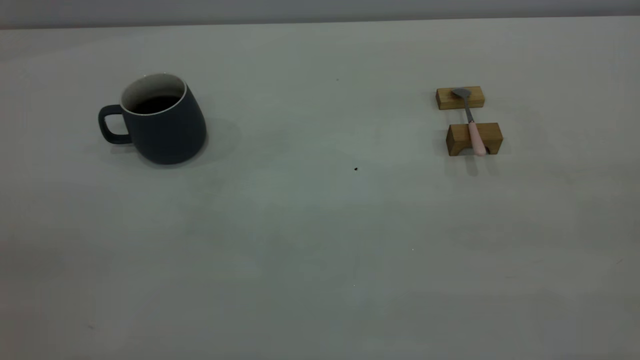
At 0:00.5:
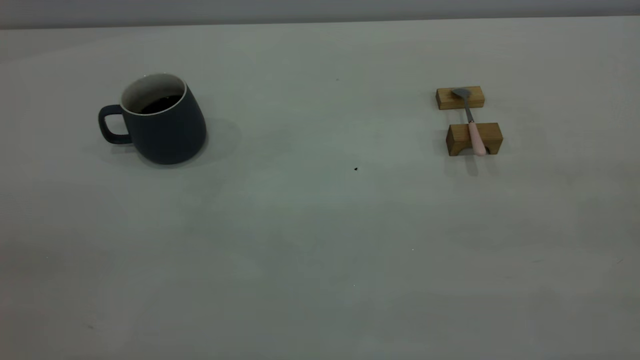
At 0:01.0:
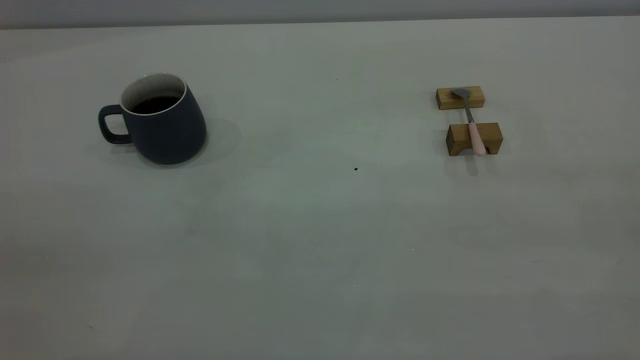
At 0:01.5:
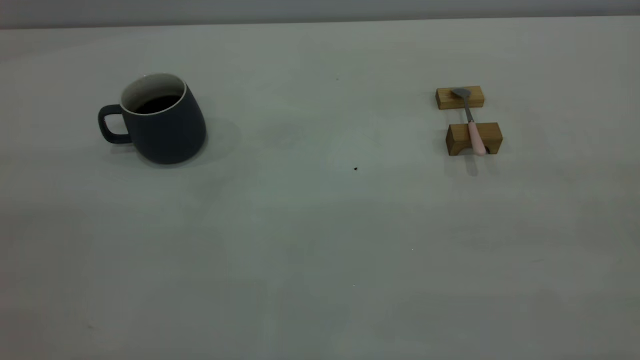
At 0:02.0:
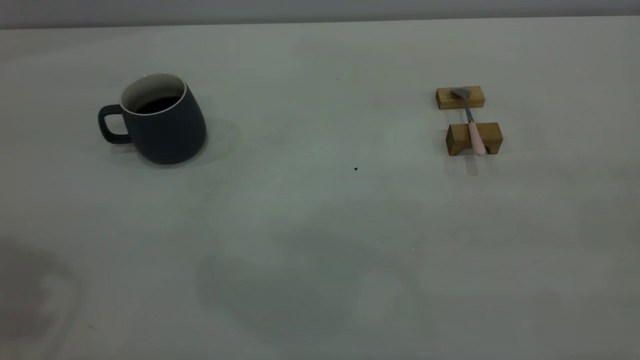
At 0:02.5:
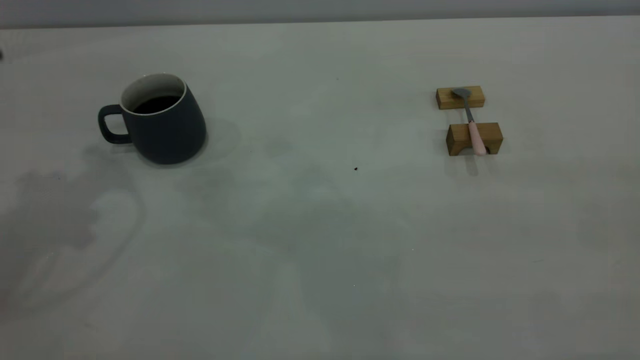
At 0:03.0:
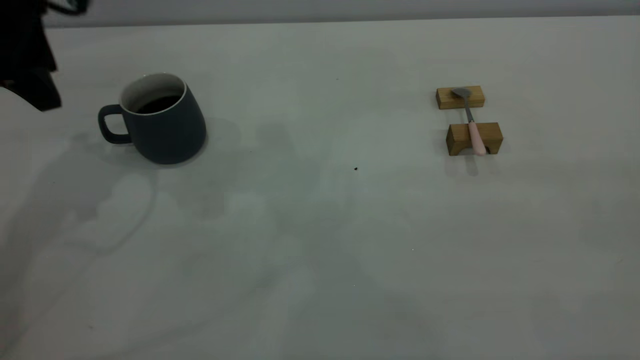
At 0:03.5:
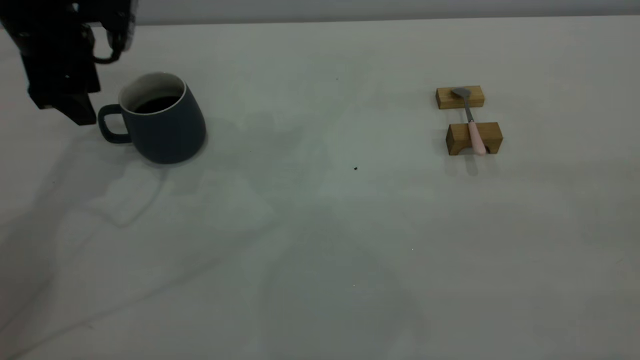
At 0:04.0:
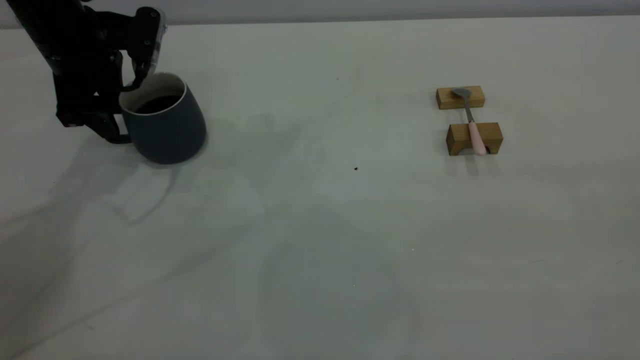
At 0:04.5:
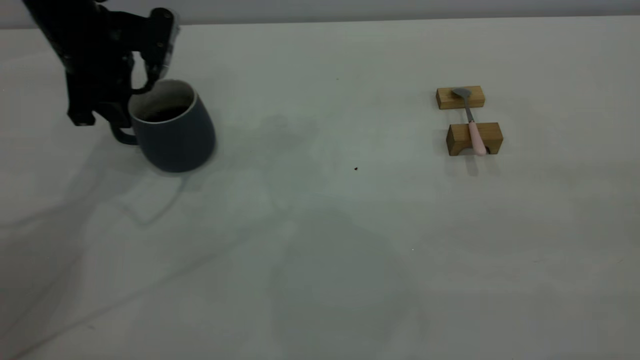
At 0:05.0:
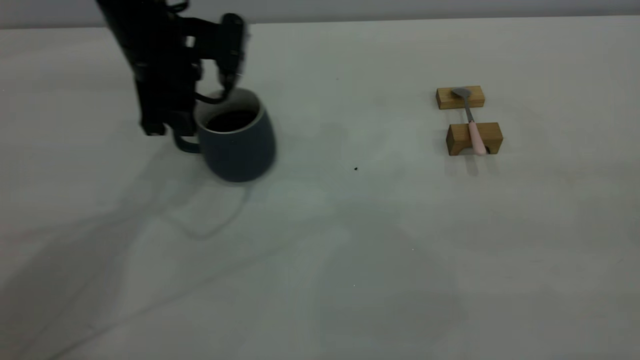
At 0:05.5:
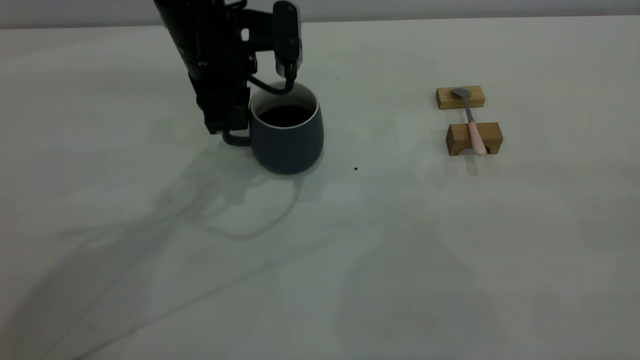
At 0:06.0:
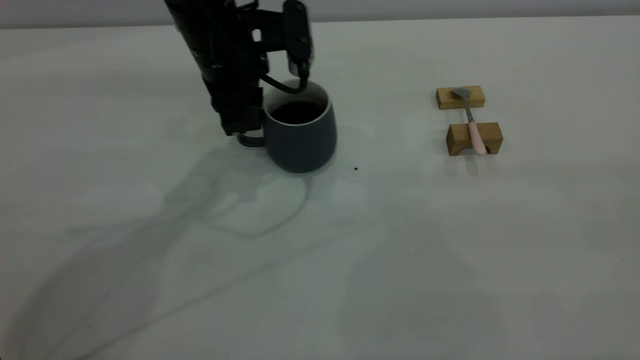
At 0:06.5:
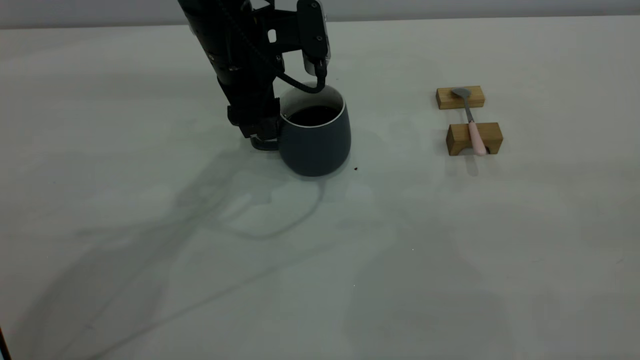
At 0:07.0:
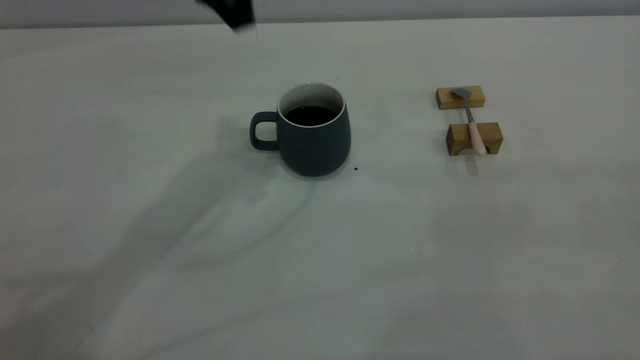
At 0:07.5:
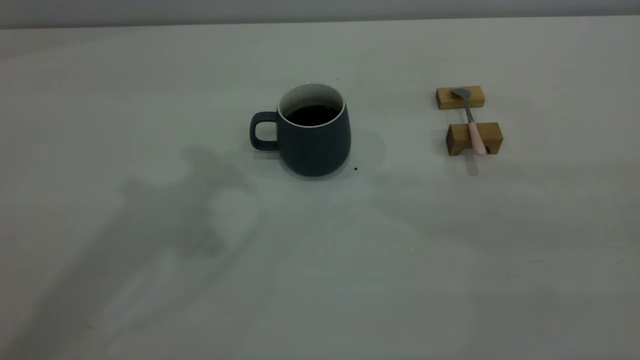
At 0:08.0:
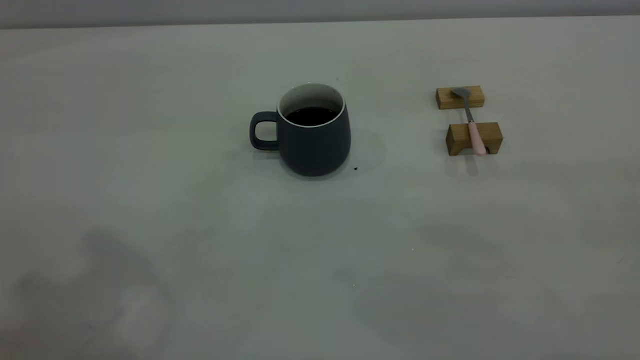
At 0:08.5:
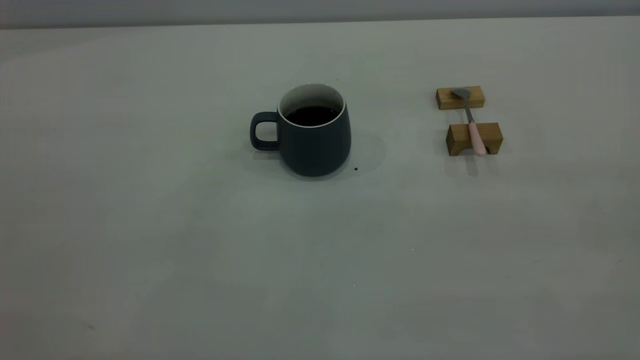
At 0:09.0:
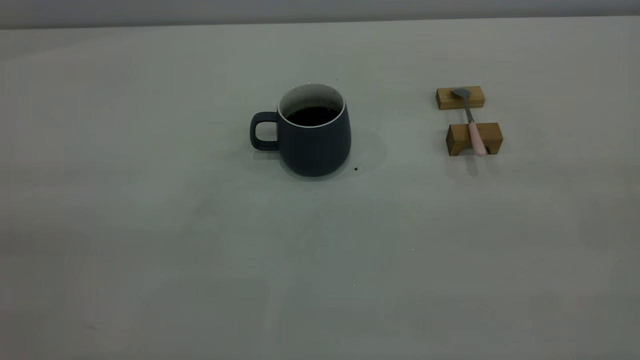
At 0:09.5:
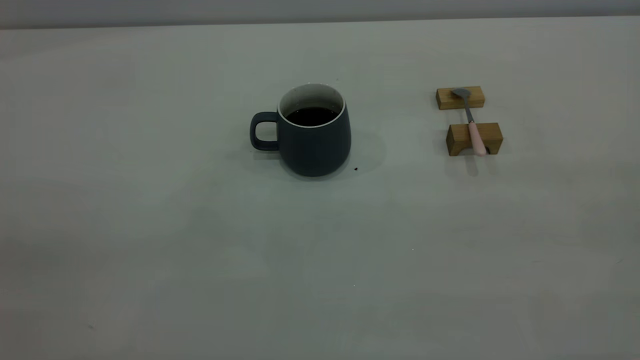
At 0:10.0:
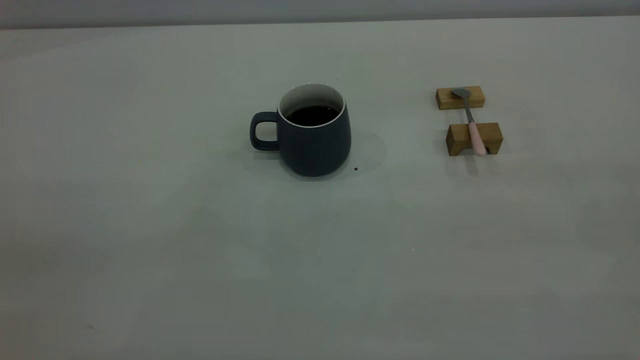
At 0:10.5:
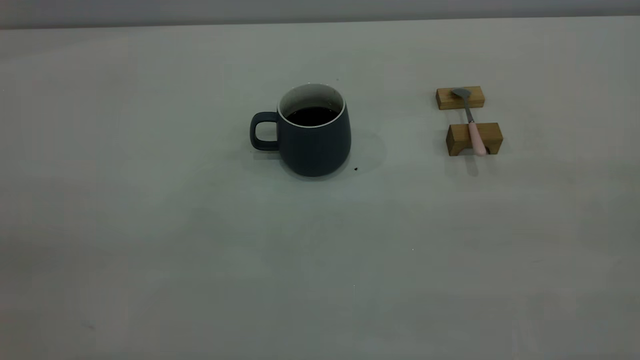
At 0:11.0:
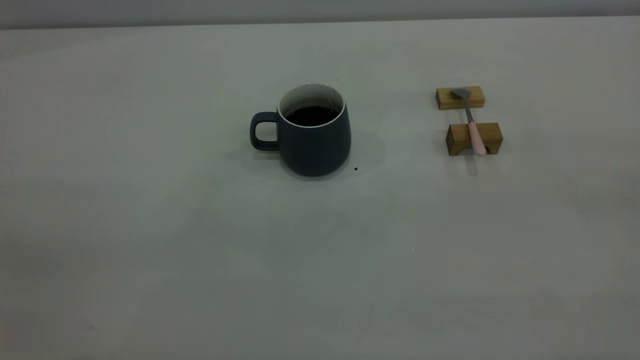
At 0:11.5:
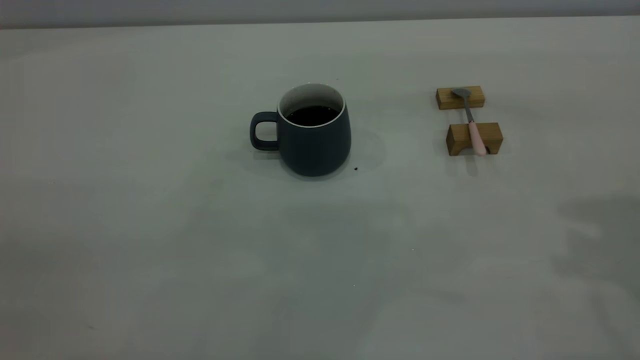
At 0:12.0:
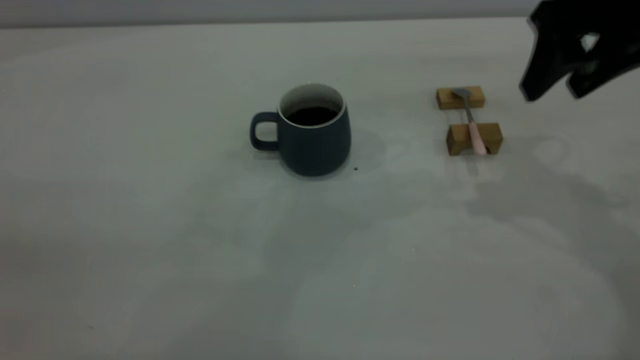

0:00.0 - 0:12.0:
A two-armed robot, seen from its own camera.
Step, 0:00.0 - 0:06.5: Move the cup with coffee to the center of view.
0:02.0 - 0:04.0: The left gripper goes some 35 cm downward and forward.
0:04.0 - 0:06.0: The left gripper shifts about 15 cm to the right, and closes up.
0:06.0 - 0:08.0: The left gripper moves upward and backward, about 40 cm, and opens, then closes again.
0:10.0 - 0:12.0: The right gripper moves forward, about 35 cm.

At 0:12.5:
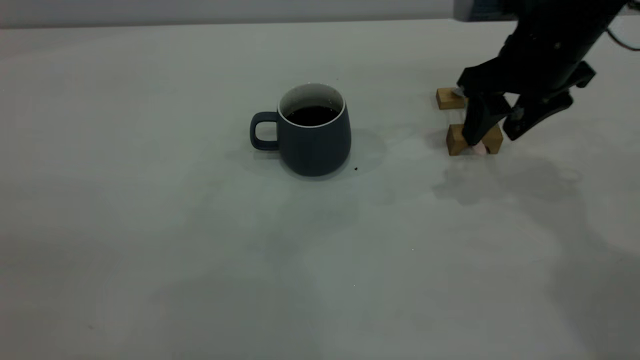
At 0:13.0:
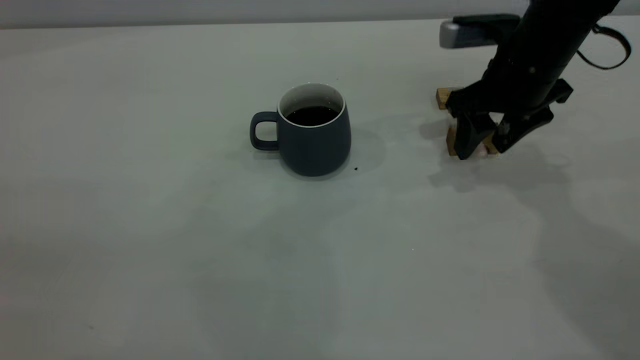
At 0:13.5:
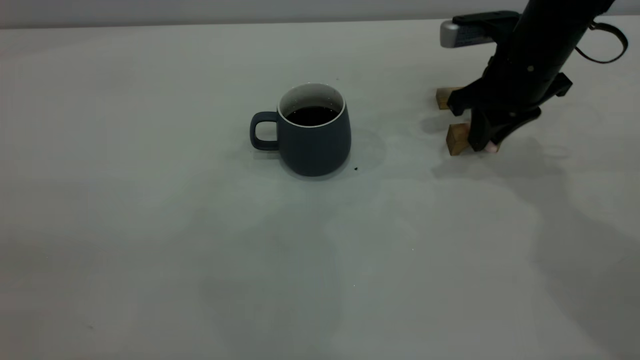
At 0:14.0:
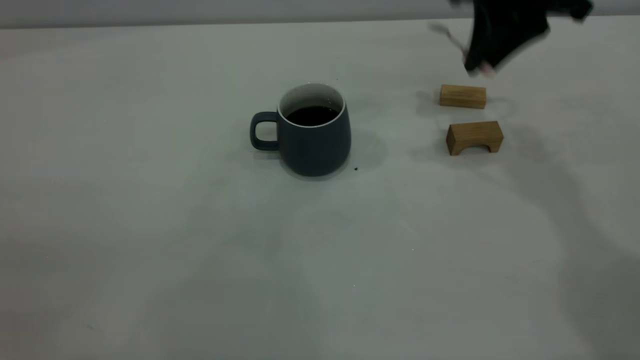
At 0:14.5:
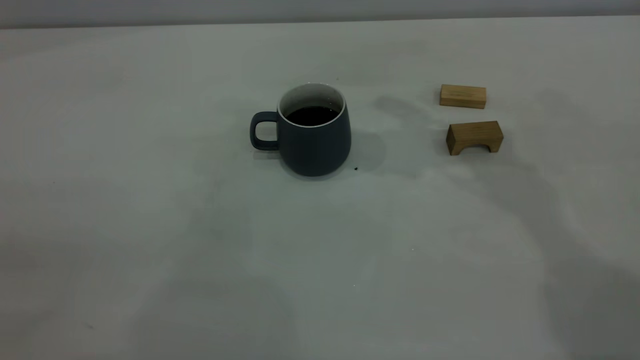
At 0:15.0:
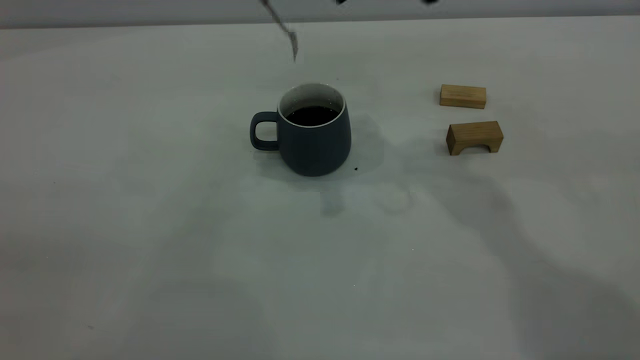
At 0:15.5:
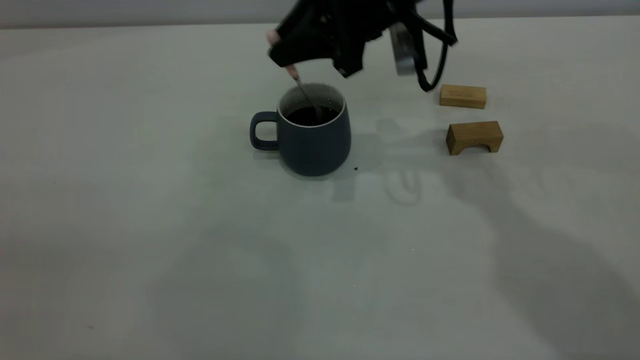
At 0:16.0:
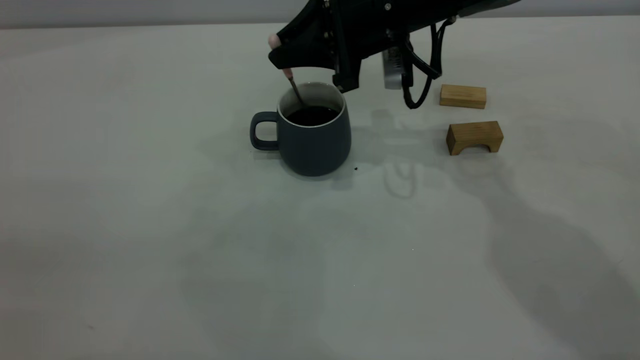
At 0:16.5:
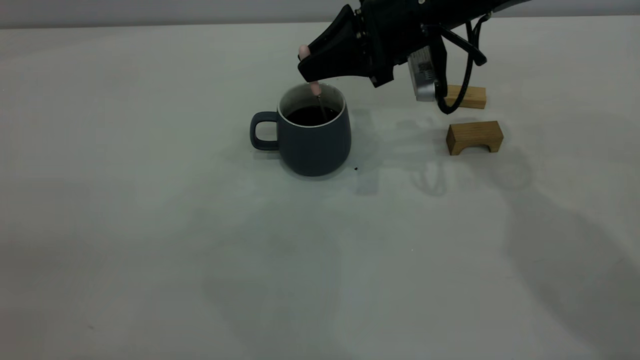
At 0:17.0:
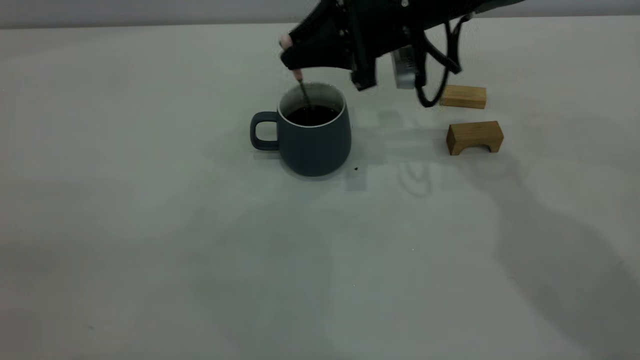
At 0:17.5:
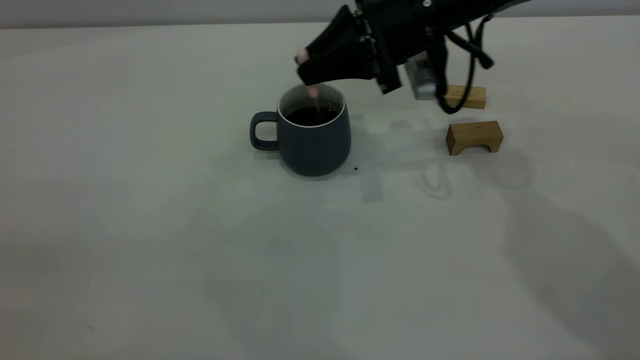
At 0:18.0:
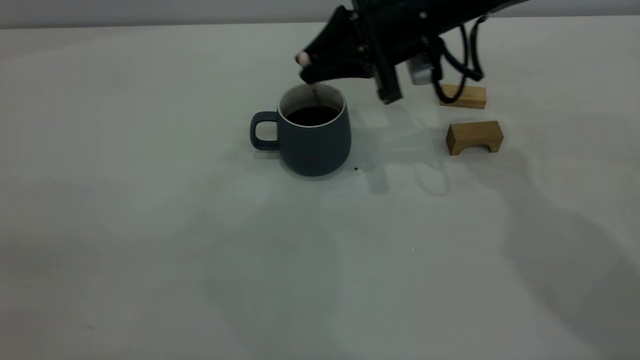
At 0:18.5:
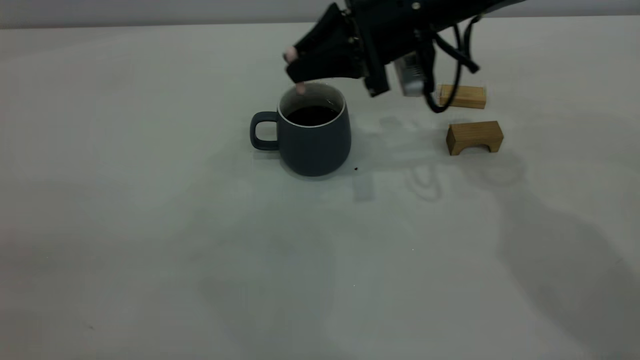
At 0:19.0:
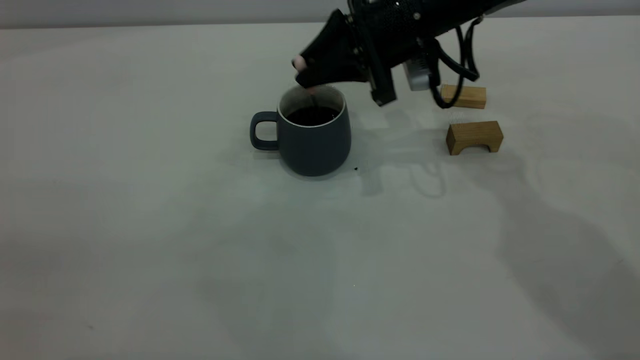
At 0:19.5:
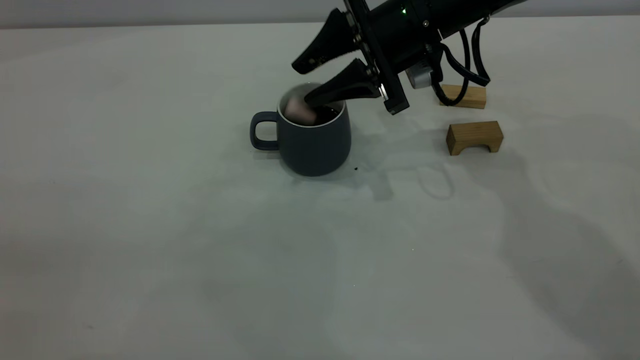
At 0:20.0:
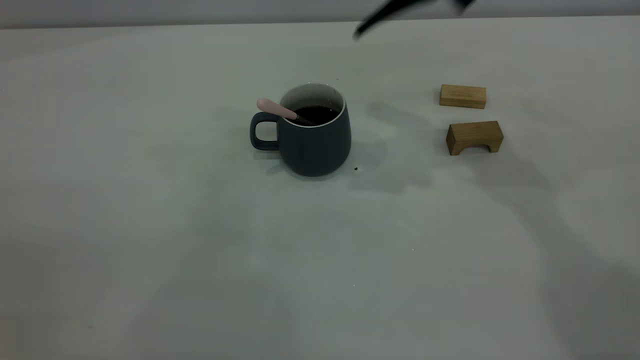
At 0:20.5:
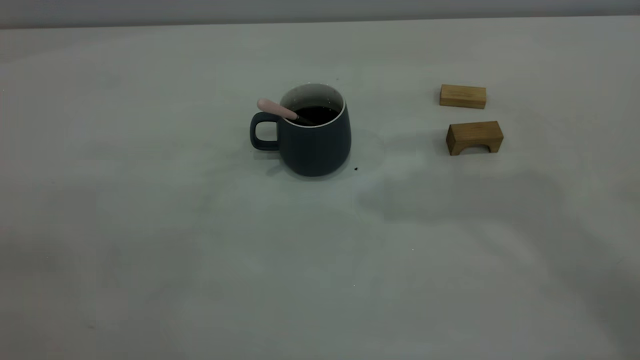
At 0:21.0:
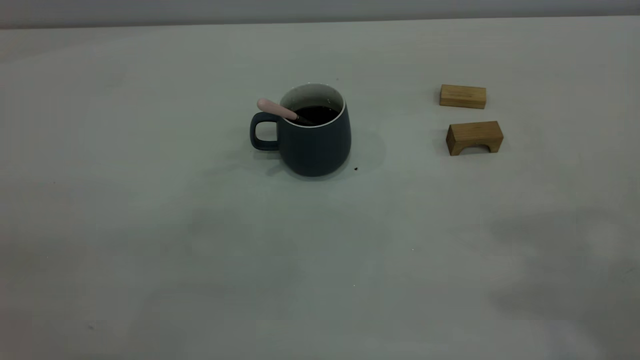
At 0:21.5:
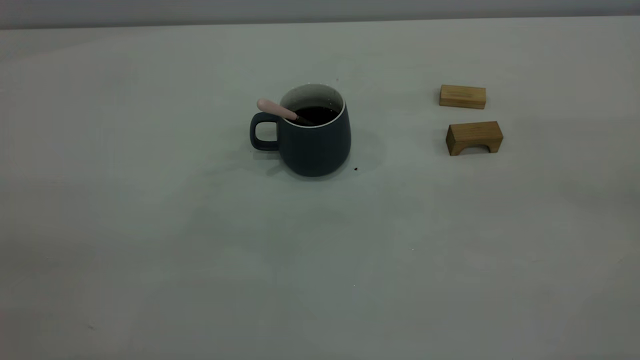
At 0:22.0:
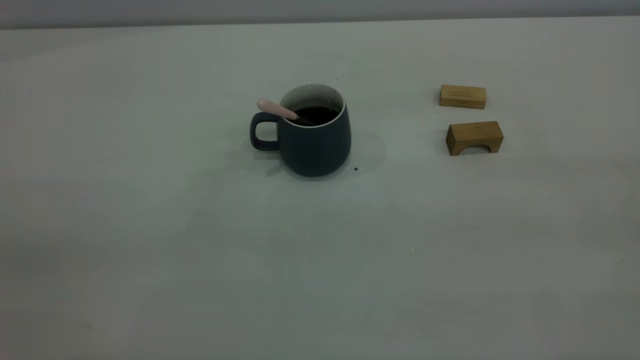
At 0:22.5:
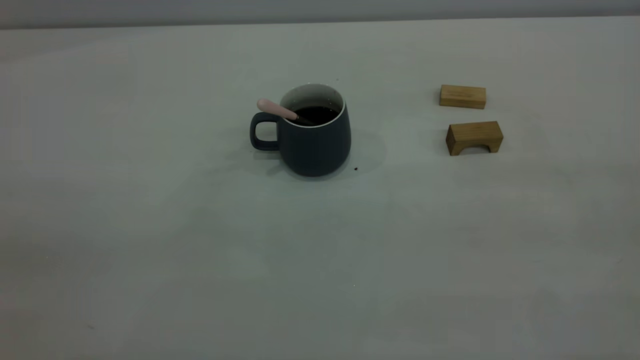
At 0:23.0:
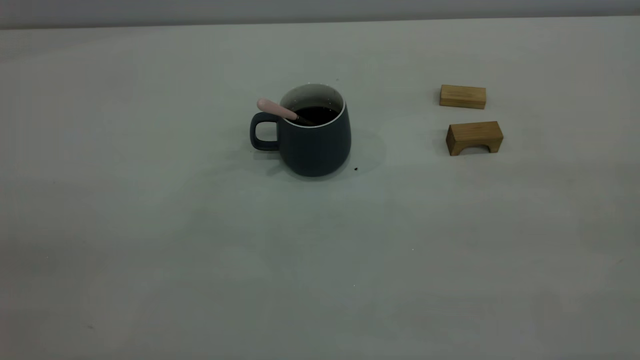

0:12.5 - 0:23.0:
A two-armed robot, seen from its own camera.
Step, 0:14.0 - 0:19.5: Stir the coffee in the cup.
0:12.5 - 0:14.5: The right gripper travels upward and to the left by roughly 15 cm, and closes.
0:14.5 - 0:16.5: The right gripper goes roughly 15 cm downward.
0:19.0 - 0:21.0: The right gripper goes roughly 40 cm upward, backward and to the right, and opens, then closes once more.
